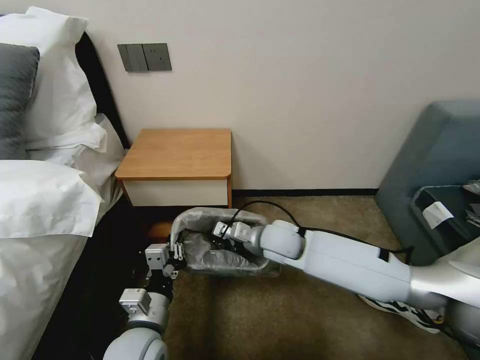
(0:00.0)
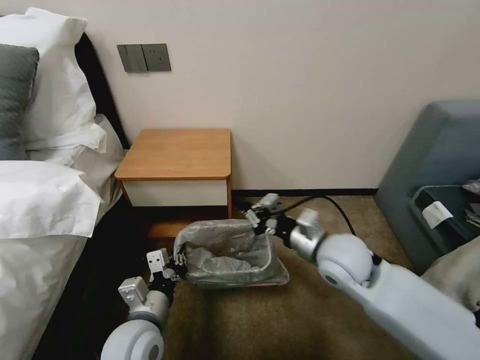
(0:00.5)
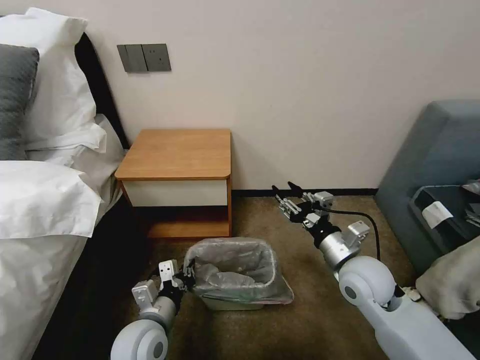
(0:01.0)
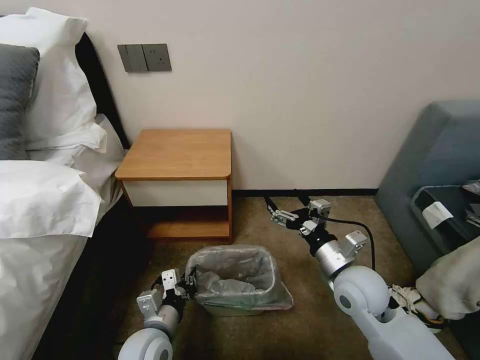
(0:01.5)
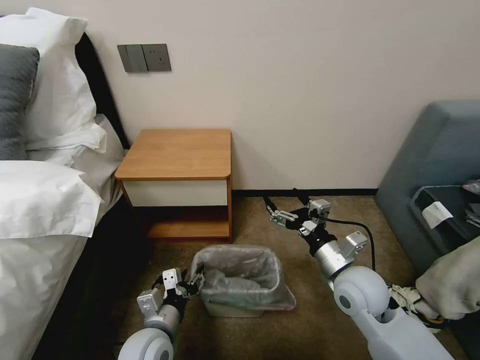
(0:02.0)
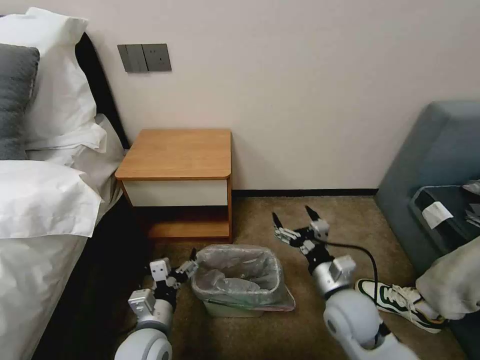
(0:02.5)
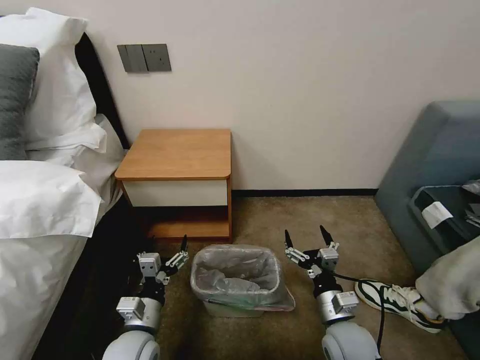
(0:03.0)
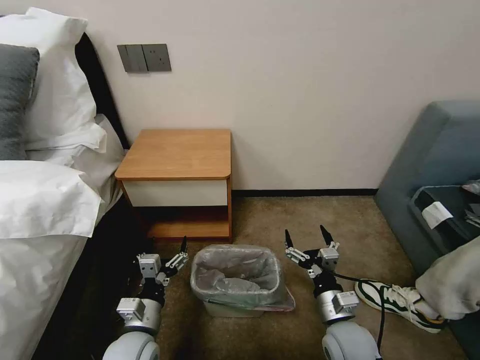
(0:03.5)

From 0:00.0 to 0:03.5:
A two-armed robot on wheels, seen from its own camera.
Task of the whole recording: Pick up the garbage bag from the table and place it over the trash can.
From 0:00.0 to 0:02.0: The left gripper opens its fingers. Meanwhile the right gripper heads to the right and backward, covering some 20 cm, and opens its fingers.
From 0:02.0 to 0:03.5: The right gripper shifts some 15 cm downward and backward. Meanwhile the left gripper opens.
